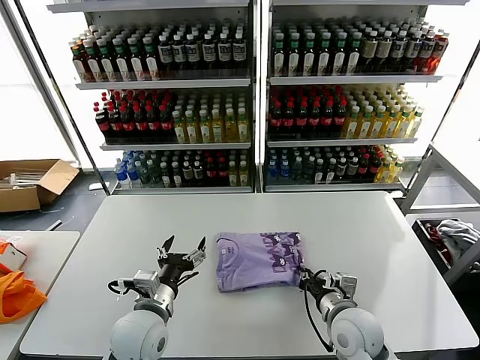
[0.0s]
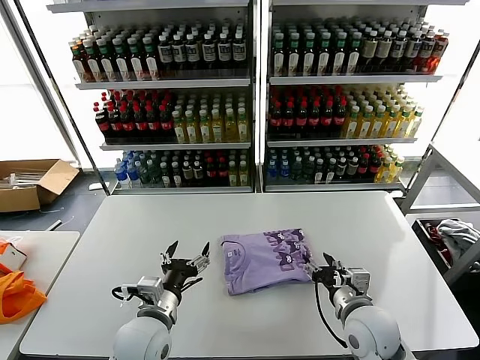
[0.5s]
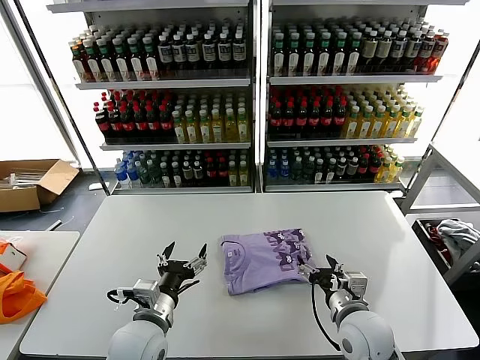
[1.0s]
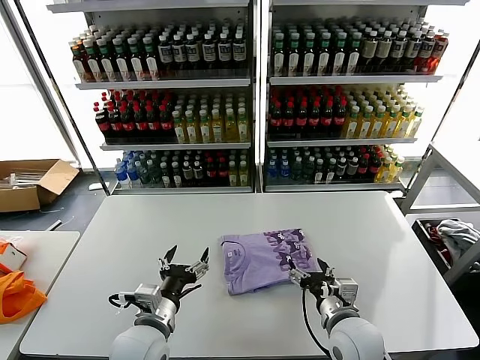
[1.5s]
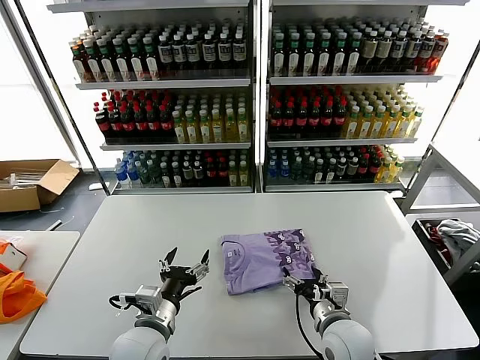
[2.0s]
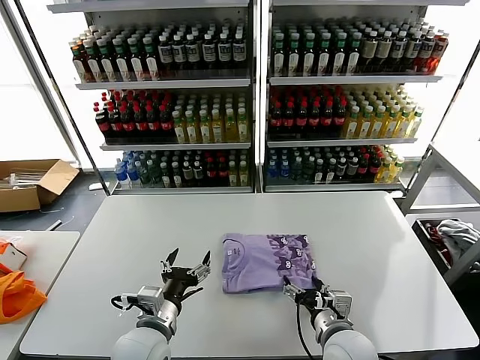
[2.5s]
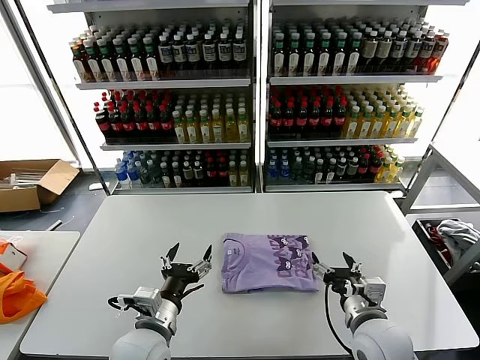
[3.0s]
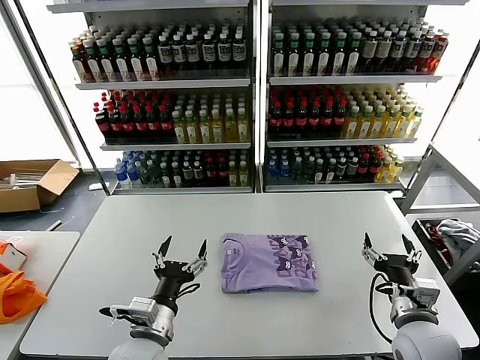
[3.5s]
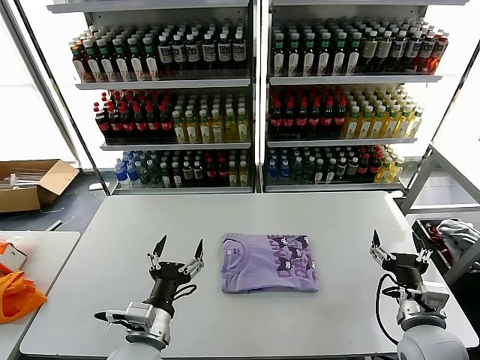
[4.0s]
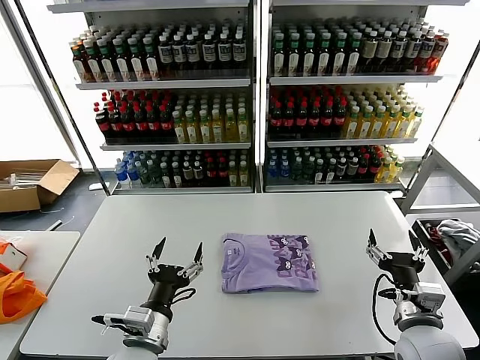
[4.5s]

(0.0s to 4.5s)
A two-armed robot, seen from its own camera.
Task of the whole recording: fold and organize the clothes.
Step, 0.0s - 2.5s: Drag the clothes to the center of the table.
0.0s - 2.0s: The right gripper opens.
2.0s - 4.5s: The right gripper travels to the right and upward by roughly 15 cm.

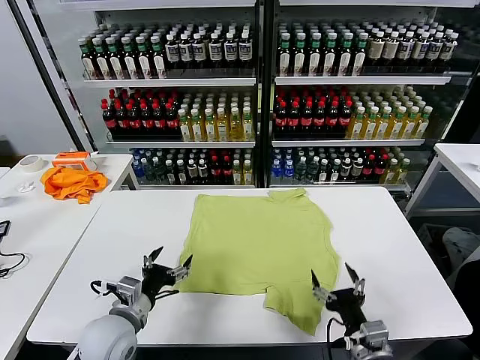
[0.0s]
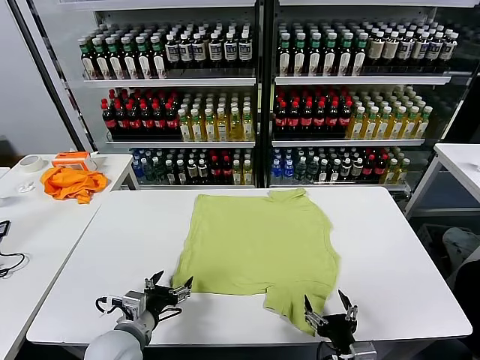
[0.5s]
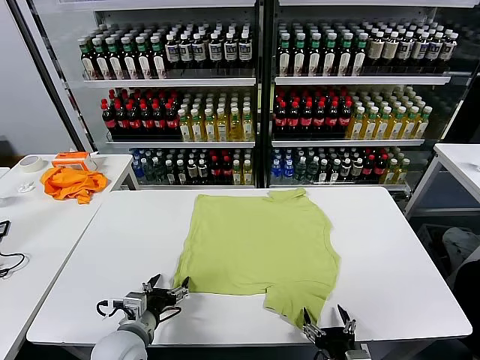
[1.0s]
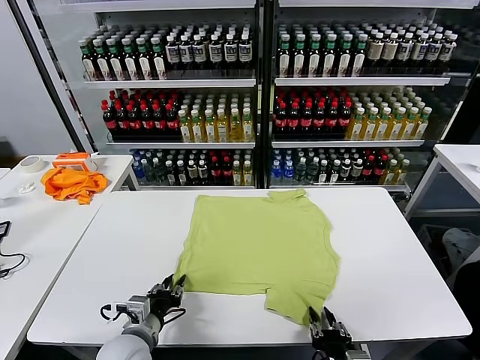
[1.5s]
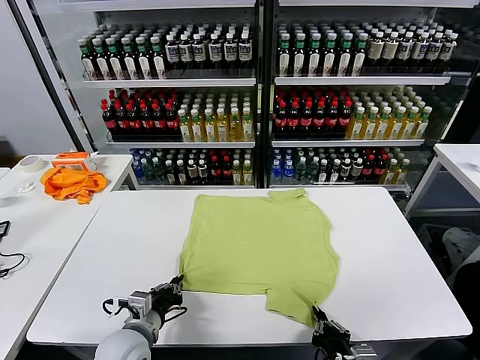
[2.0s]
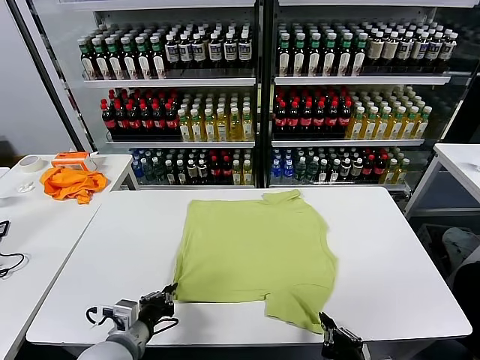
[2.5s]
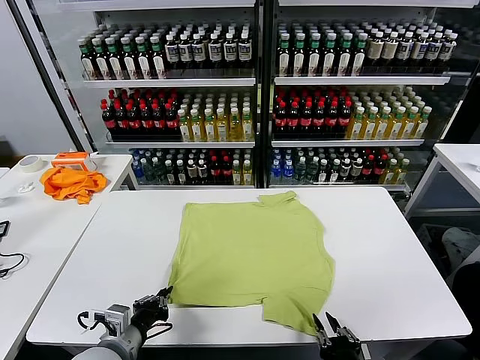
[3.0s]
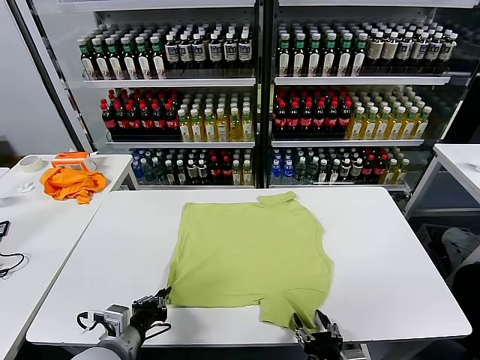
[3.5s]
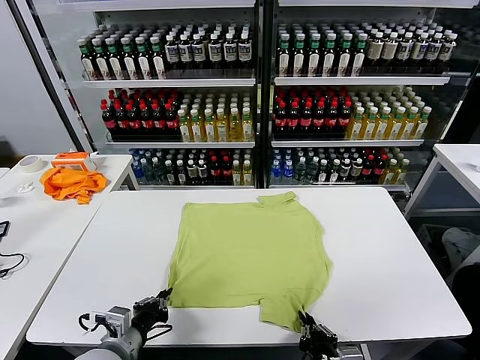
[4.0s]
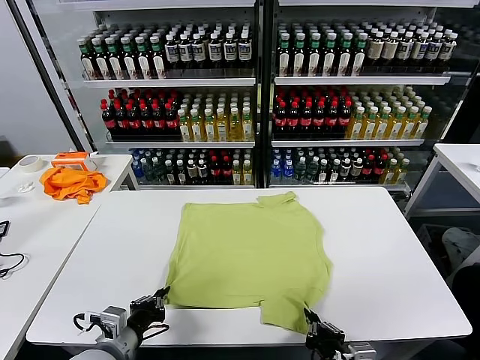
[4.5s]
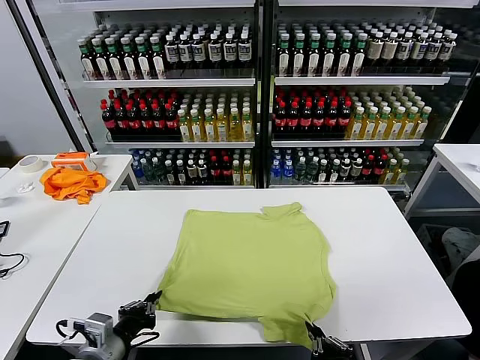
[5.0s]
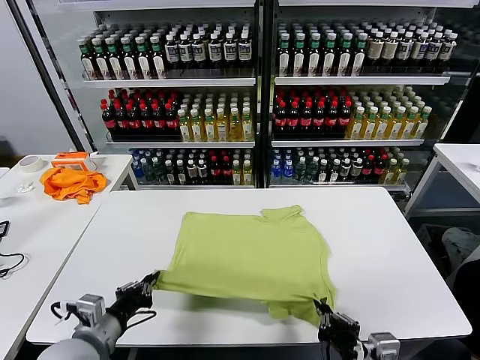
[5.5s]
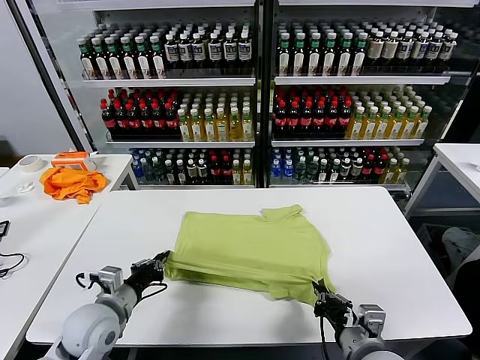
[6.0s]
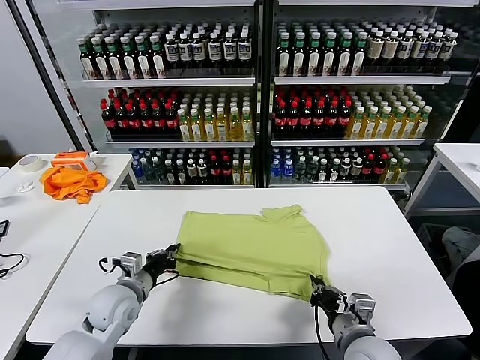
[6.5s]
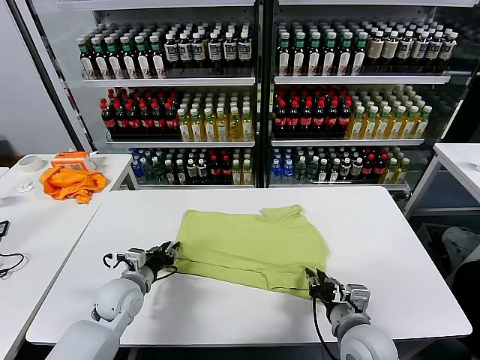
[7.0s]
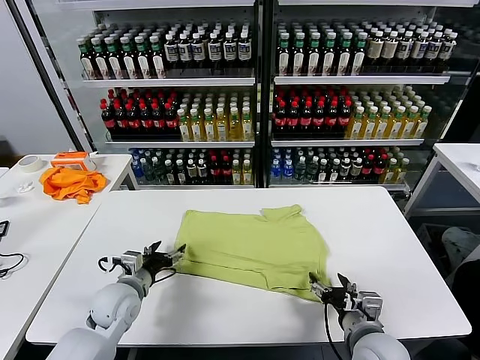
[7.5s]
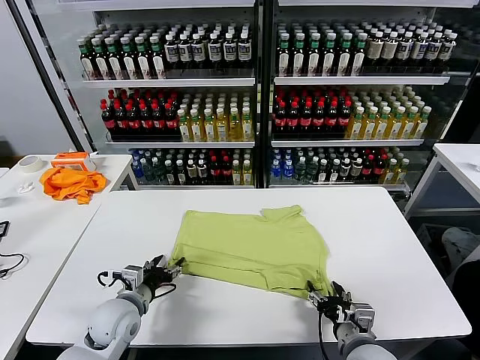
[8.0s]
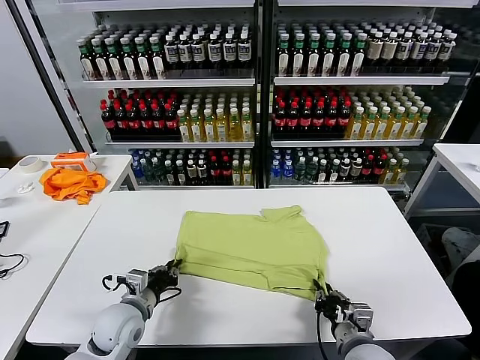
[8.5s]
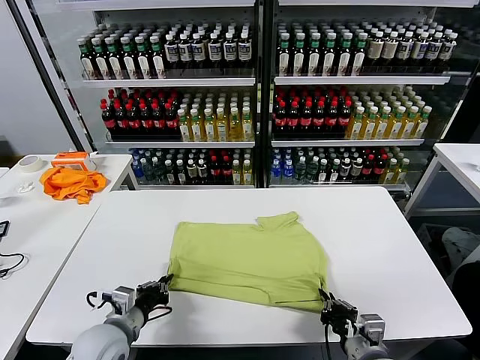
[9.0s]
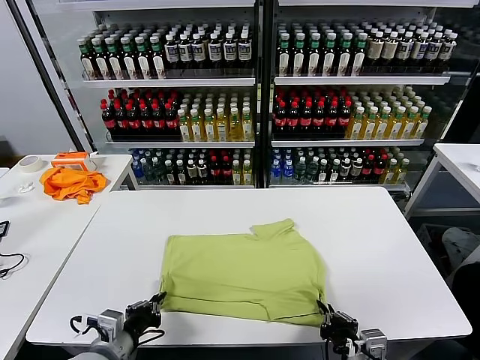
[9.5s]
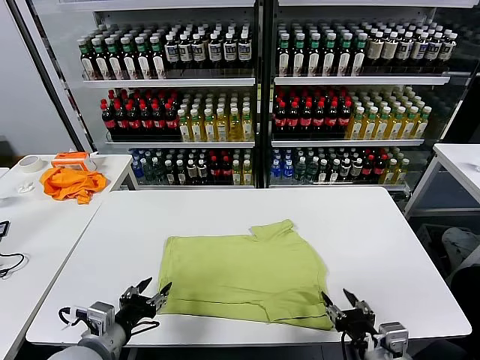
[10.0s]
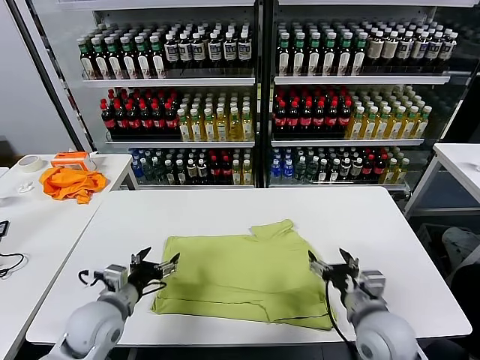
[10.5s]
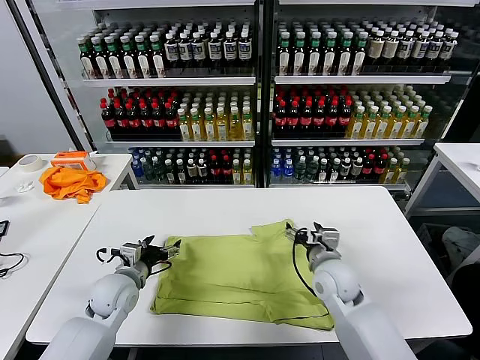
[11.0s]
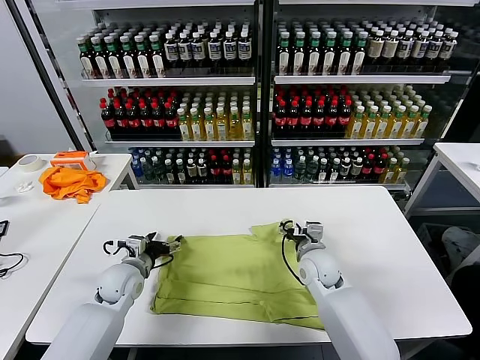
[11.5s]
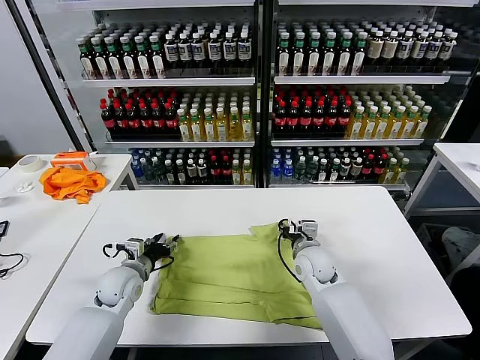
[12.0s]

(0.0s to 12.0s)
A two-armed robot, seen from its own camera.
Task of the whole recording: fold and organize the clothes.
Step, 0.0s - 1.5s: use both grippers simultaneously to clamp the lower edge of the clothing fabric.
Step, 2.0s - 7.0s: use both grippers to drag the lower edge of the fabric forward and fold it over the upper edge.
Step, 7.5s - 9.5s: Drag the clothes downward with both gripper.
2.0s - 4.0s: The right gripper opens, then closes again. Meanwhile the left gripper changes place by some 5 cm.
4.0s - 6.0s: The right gripper moves forward and upward, roughly 10 cm; the left gripper moves forward, approximately 10 cm.
6.0s - 8.0s: The right gripper is displaced downward by approximately 5 cm, and opens its fingers, while the left gripper goes forward and returns, some 10 cm each way, and opens its fingers.
8.0s - 10.0s: The left gripper moves backward and upward, roughly 15 cm, and closes, then reopens; the right gripper travels upward and backward by approximately 10 cm, and closes and opens again.
10.0s - 12.0s: Both grippers travel together forward, about 25 cm.

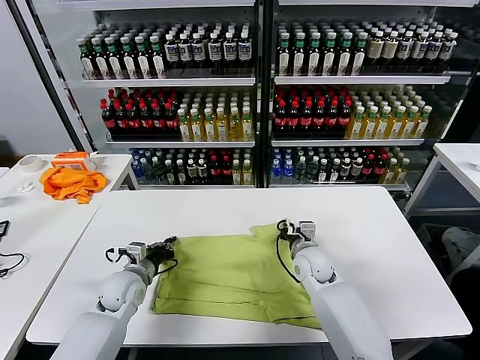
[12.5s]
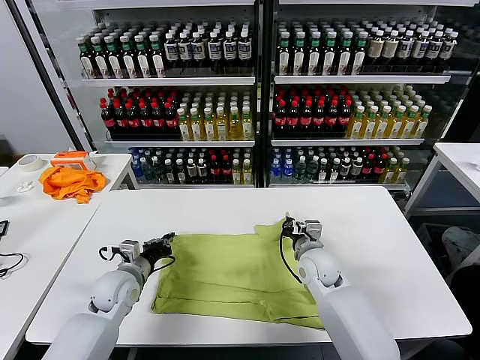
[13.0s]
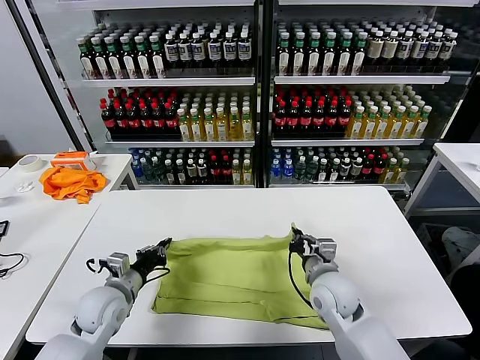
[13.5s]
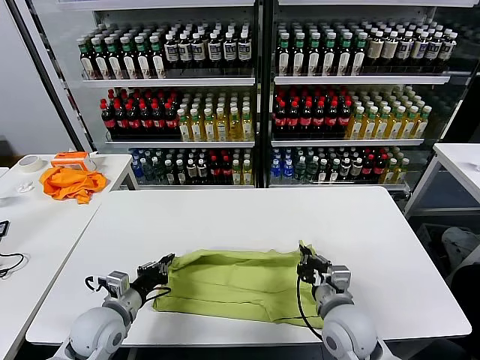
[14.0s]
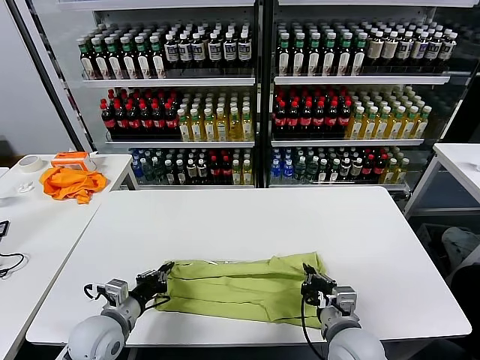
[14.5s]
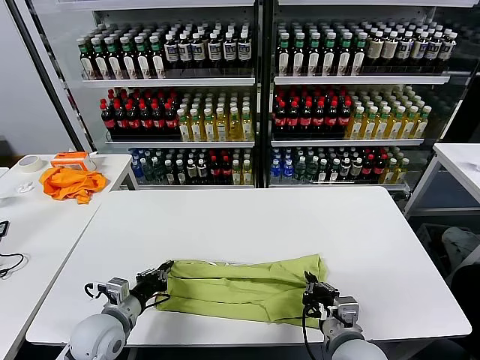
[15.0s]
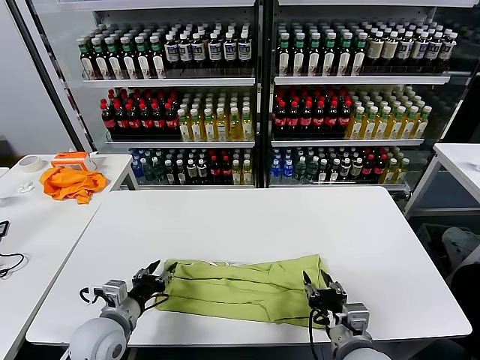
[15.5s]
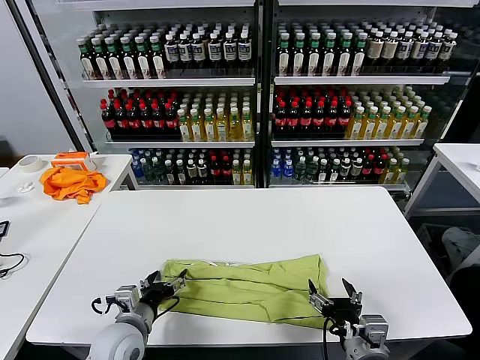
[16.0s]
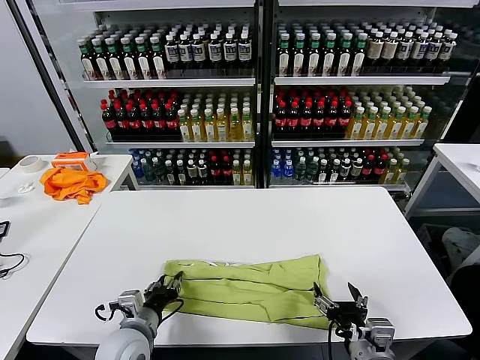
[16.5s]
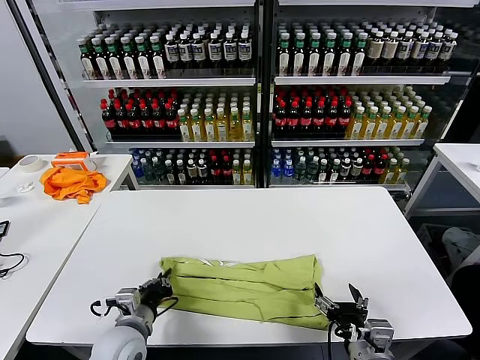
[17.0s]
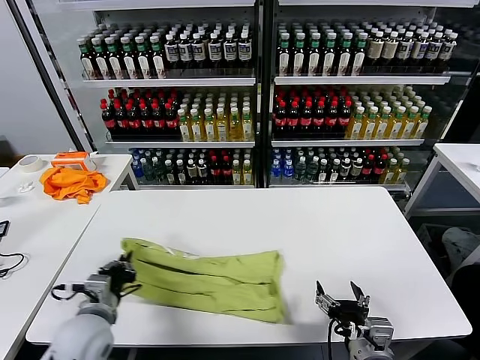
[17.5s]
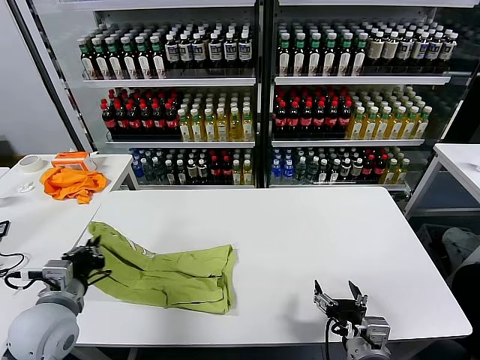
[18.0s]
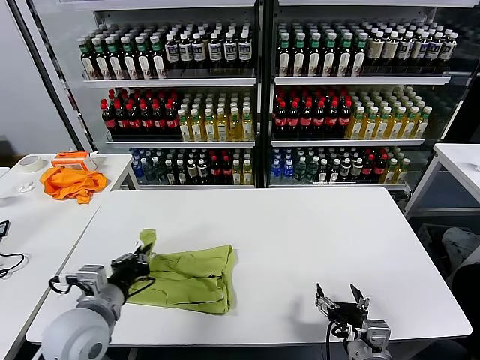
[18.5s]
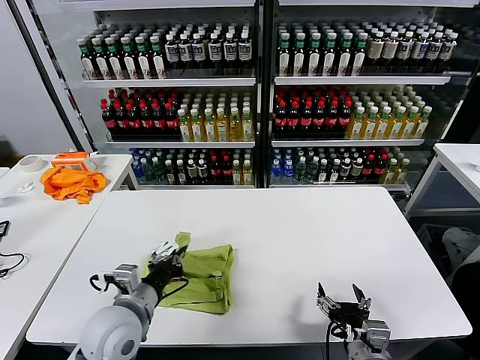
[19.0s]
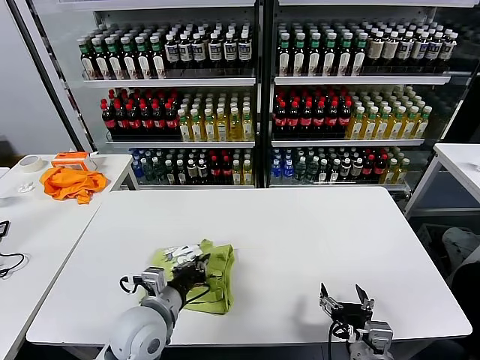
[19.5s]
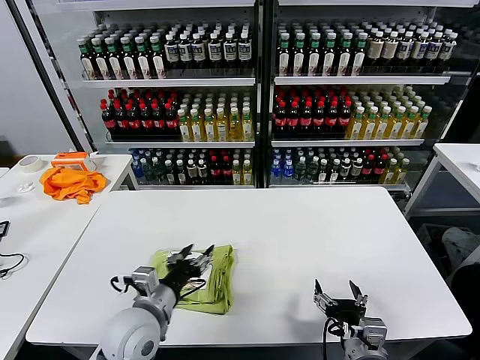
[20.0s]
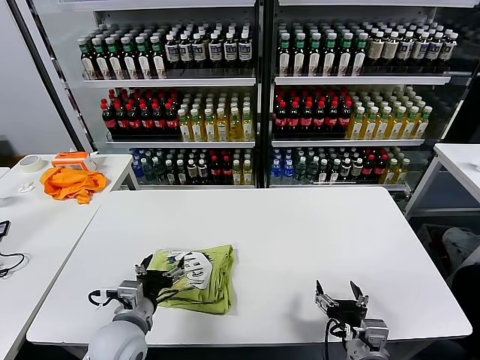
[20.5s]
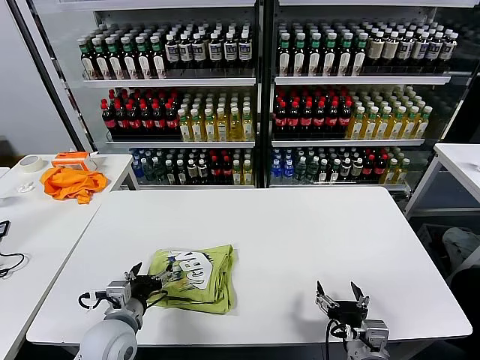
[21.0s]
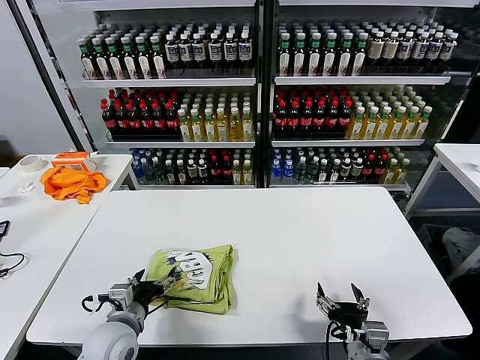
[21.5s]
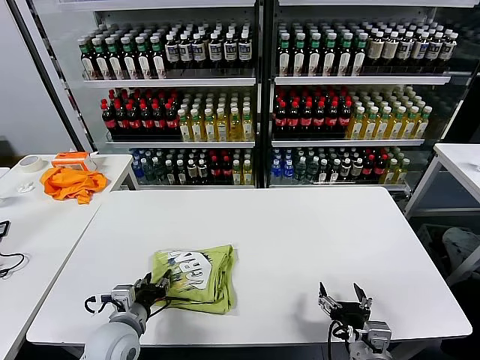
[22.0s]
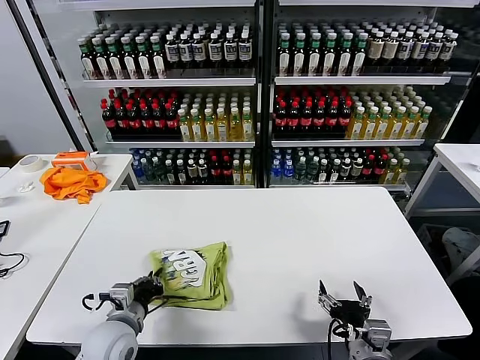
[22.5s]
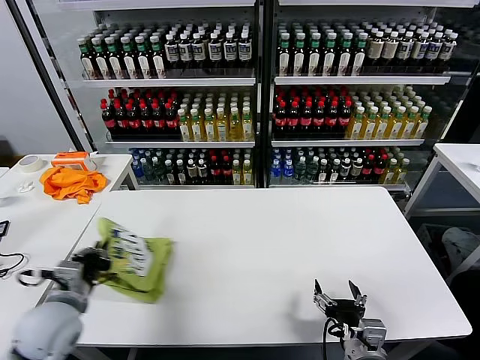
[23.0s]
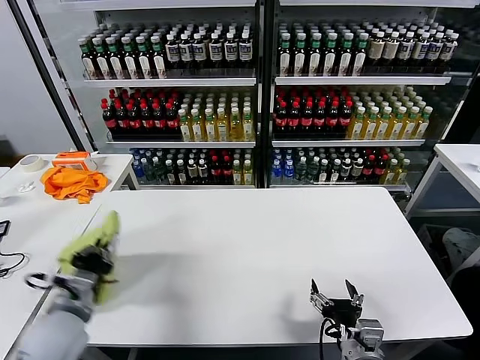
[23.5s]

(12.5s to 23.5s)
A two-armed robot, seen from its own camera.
Task of the whole recording: fold and organize the clothes.
Step, 13.0s - 15.0s: use both grippers to drag the upper edge of the fabric backward and fold it over the lower edge.
Step, 15.5s - 16.5s: use the left gripper to clamp the left edge of the fabric.
Step, 17.0s - 19.5s: use the left gripper to drag the left edge of the fabric to the left and folds it over the right edge.
12.5s - 14.5s: The right gripper goes about 20 cm backward; the left gripper travels backward by roughly 10 cm.
14.5s - 16.0s: The right gripper is displaced backward by roughly 5 cm, and opens up, while the left gripper opens.
16.0s - 18.0s: The left gripper travels upward and to the left by about 15 cm, and closes up.
18.0s - 20.0s: The left gripper is displaced to the right by approximately 15 cm, and opens up.
20.0s - 21.5s: The left gripper moves to the left and downward, roughly 10 cm.
21.5s - 23.5s: The left gripper moves upward and to the left, approximately 10 cm, and closes up.
